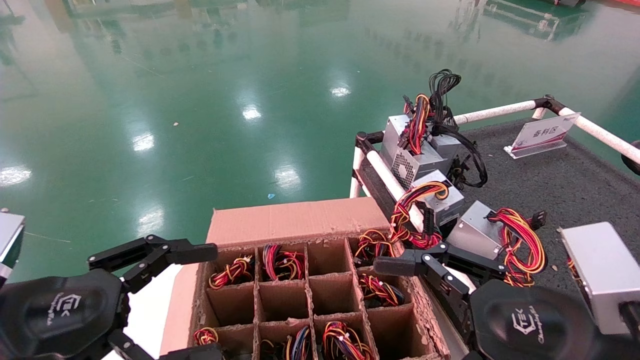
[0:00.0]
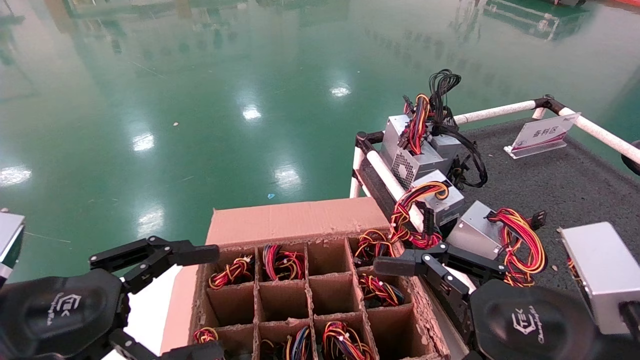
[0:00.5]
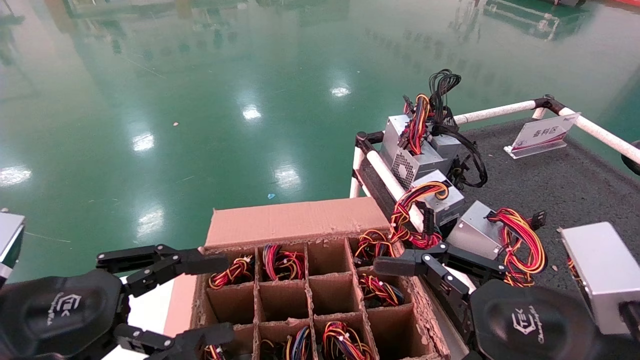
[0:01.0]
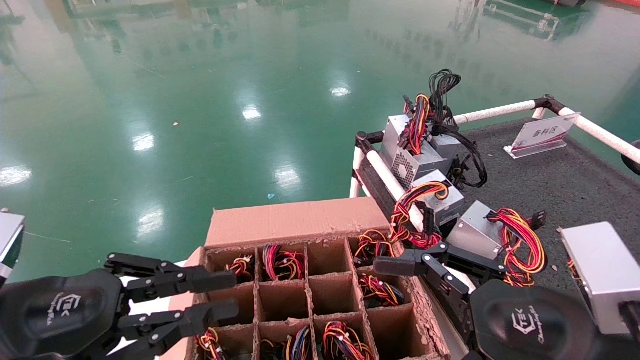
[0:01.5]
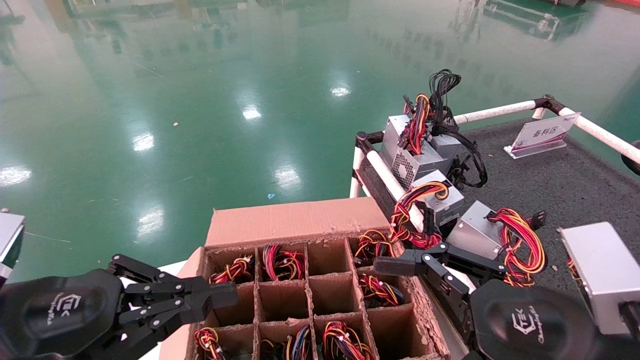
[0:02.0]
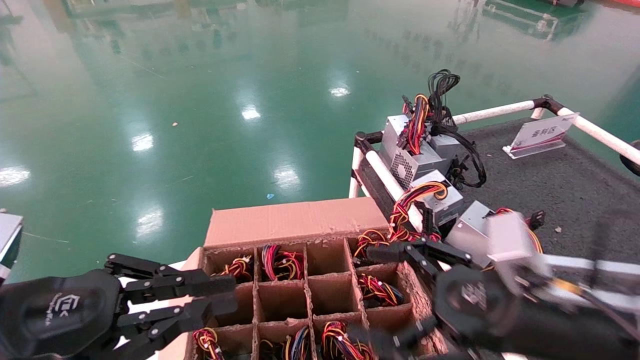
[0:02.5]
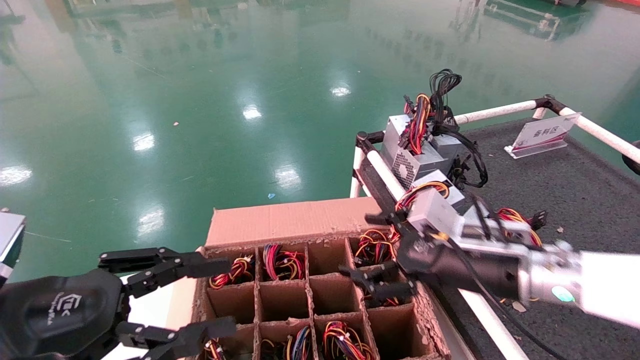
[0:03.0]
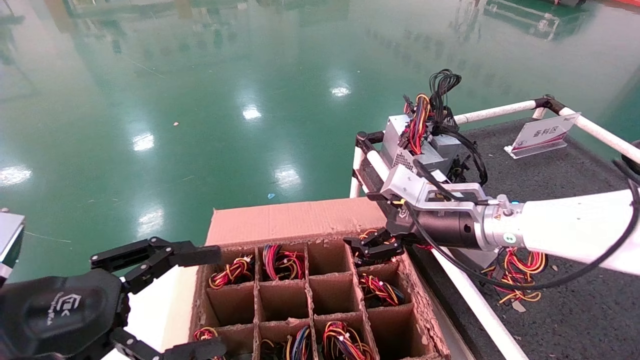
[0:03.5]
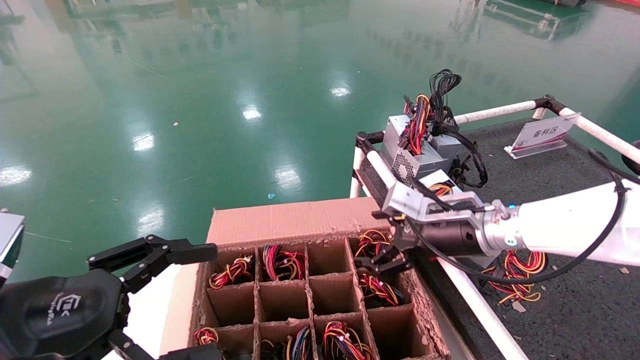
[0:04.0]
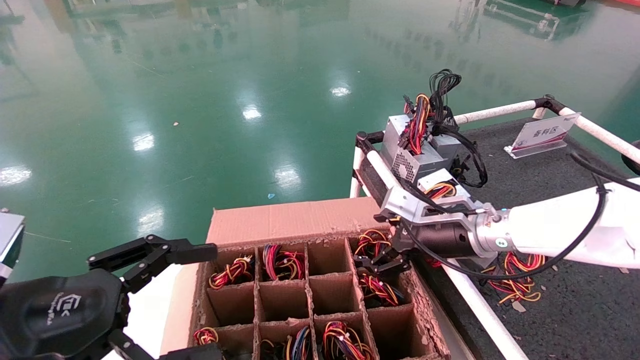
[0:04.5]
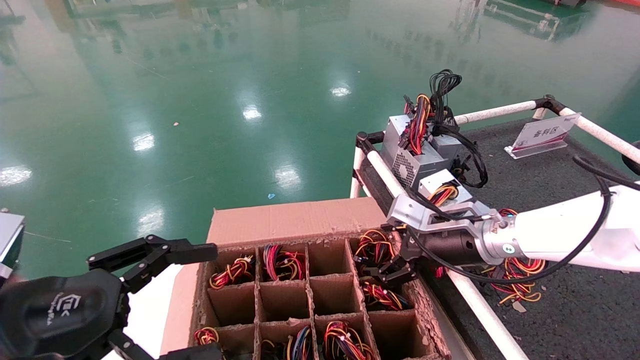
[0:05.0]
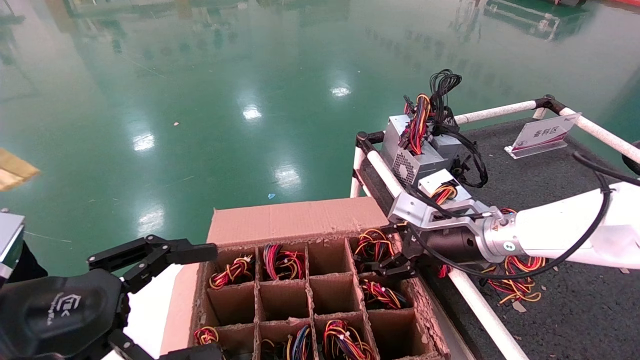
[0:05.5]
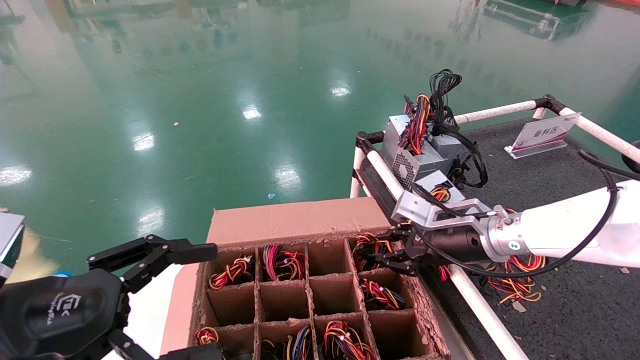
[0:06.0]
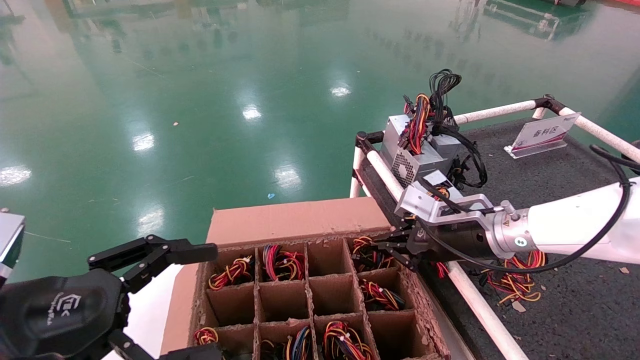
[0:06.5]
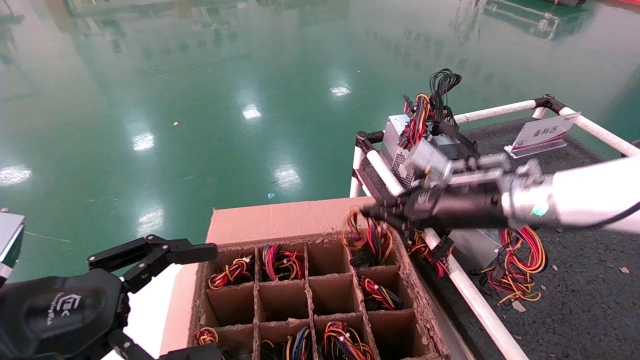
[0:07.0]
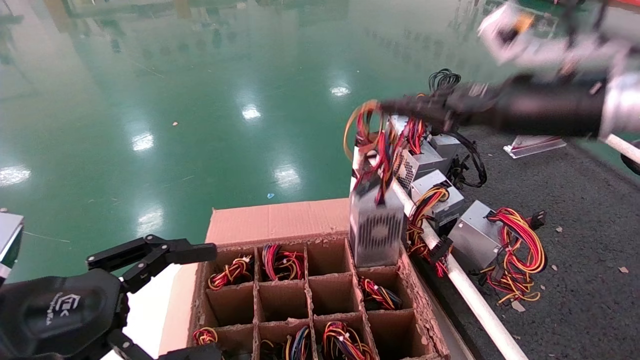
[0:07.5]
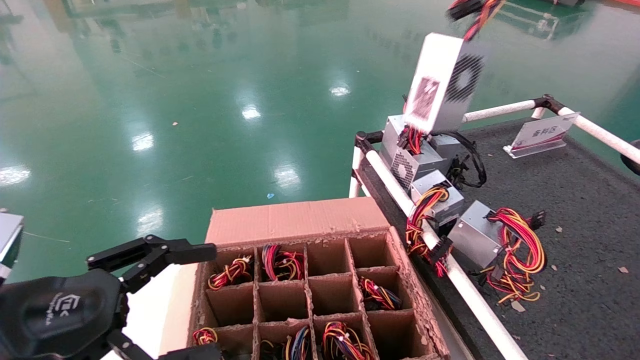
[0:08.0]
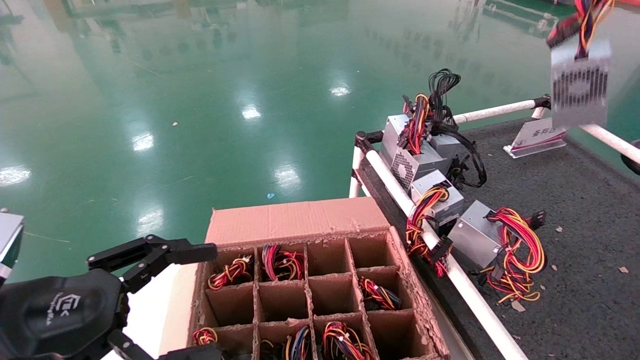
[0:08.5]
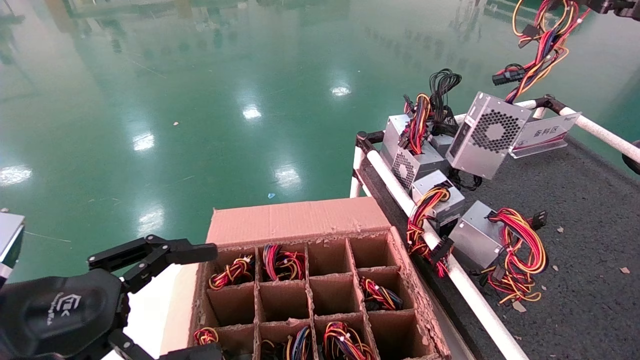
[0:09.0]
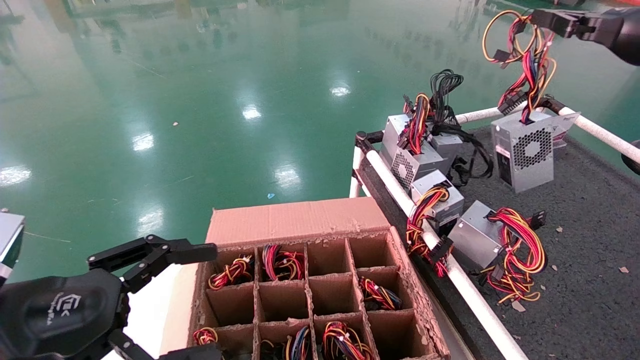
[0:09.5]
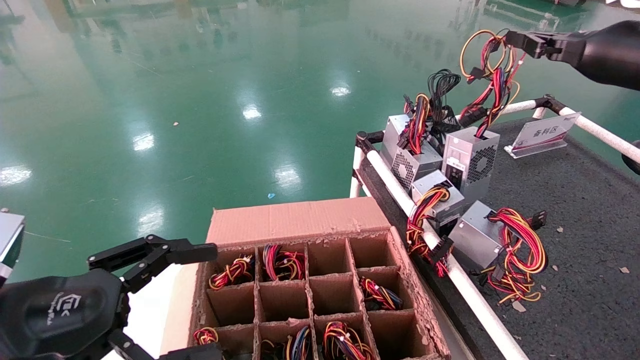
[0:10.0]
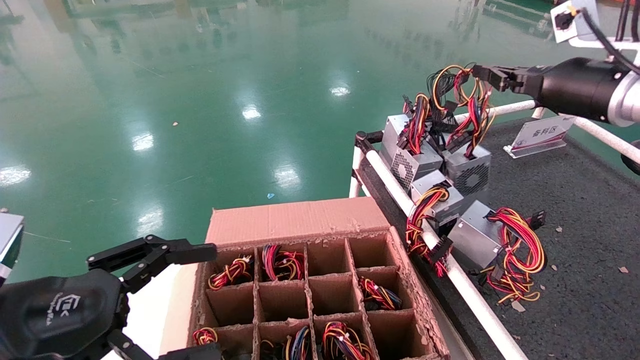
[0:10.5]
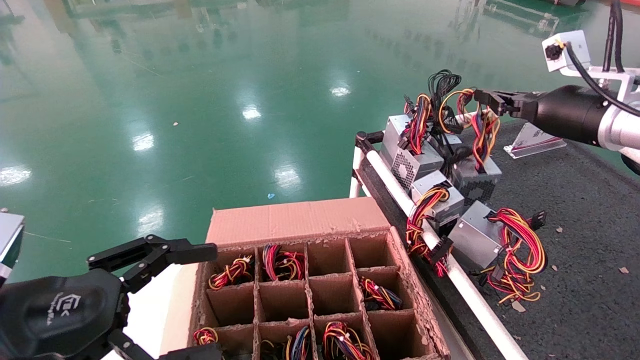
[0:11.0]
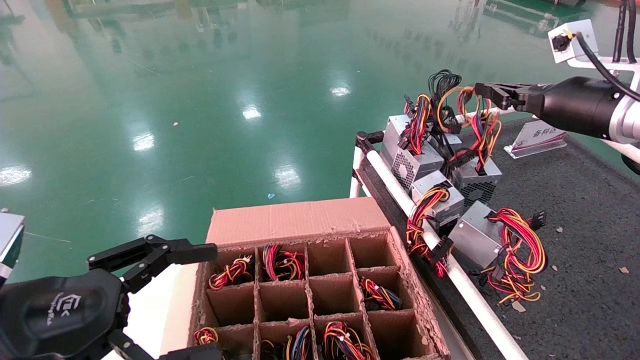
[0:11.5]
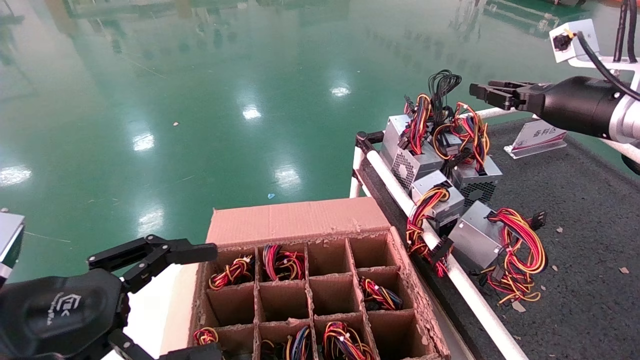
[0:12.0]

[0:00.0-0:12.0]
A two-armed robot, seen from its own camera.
Step, 0:03.0 to 0:06.5: Grab and lift the power supply from the large box.
Step, 0:07.0 to 0:12.0: Place the power supply on the operating table.
0:00.0 to 0:02.0: The left gripper closes up.
0:02.0 to 0:04.0: The right gripper is displaced forward by some 25 cm; the left gripper opens up.
0:04.0 to 0:06.0: The right gripper closes its fingers.
0:06.0 to 0:08.0: The right gripper is displaced upward and backward by about 35 cm, and closes.
0:08.0 to 0:10.0: The right gripper shifts approximately 10 cm downward and forward.
0:10.0 to 0:12.0: The right gripper moves downward, some 5 cm.

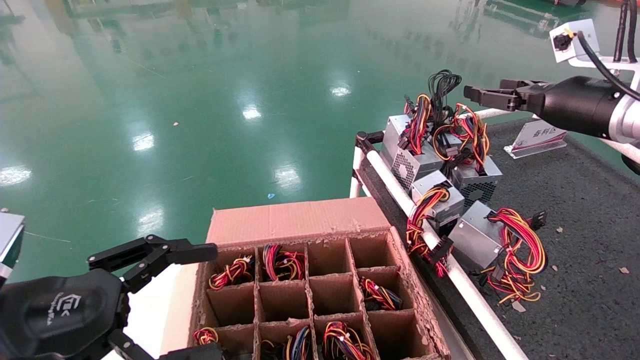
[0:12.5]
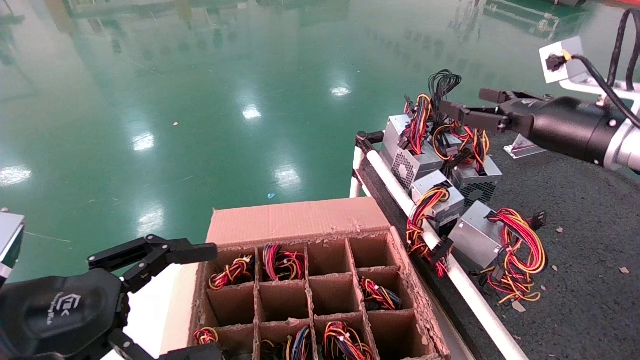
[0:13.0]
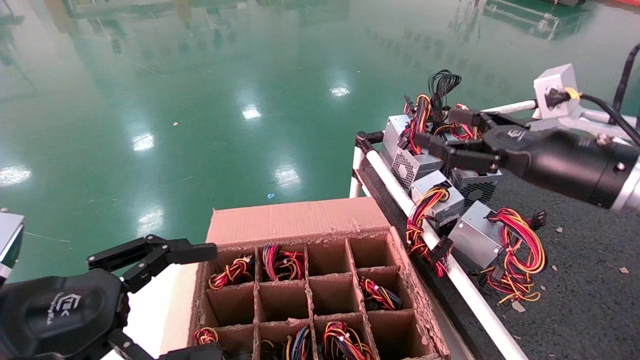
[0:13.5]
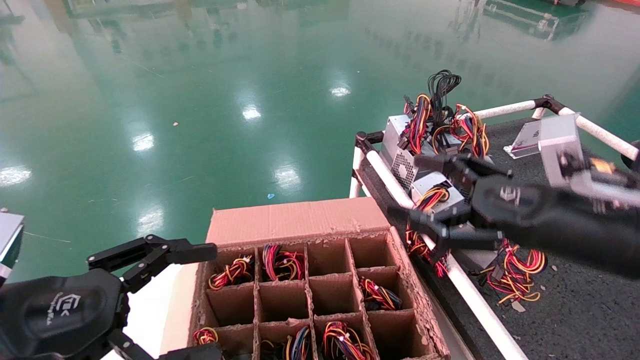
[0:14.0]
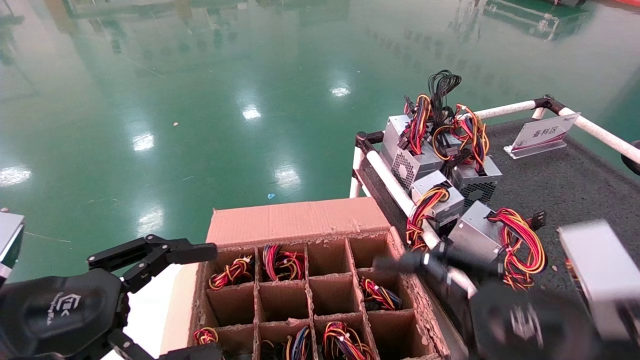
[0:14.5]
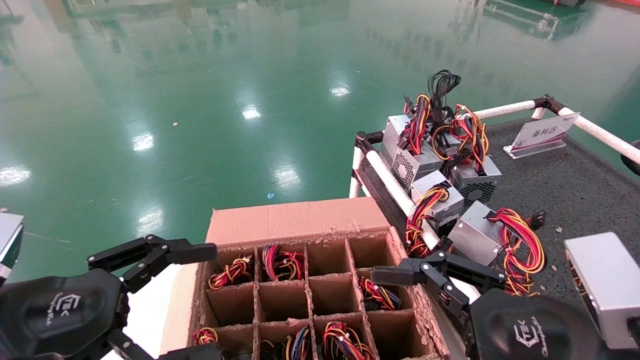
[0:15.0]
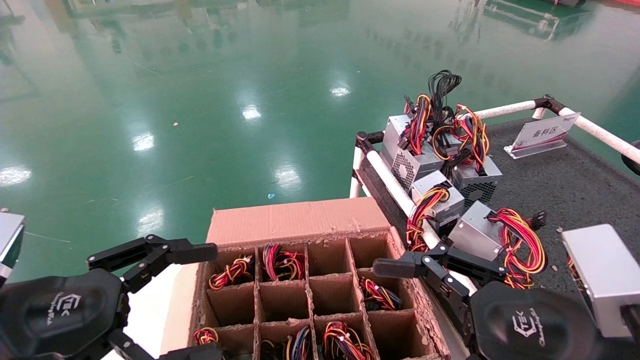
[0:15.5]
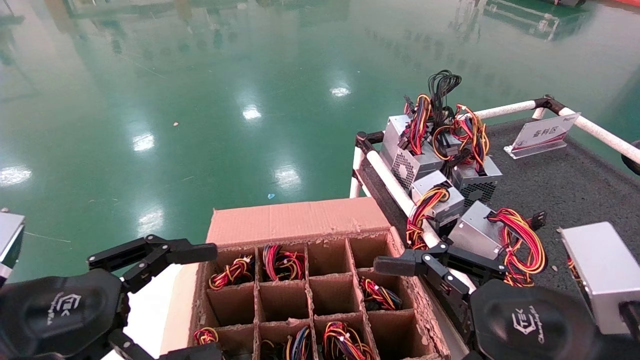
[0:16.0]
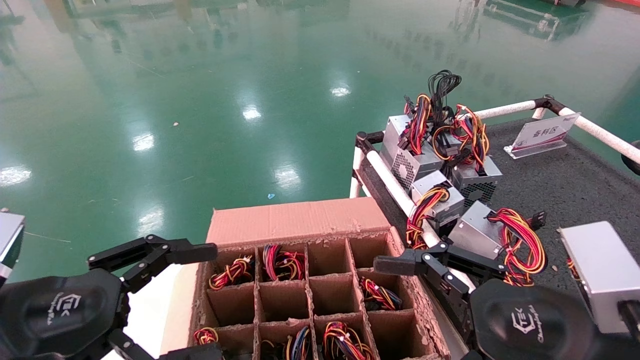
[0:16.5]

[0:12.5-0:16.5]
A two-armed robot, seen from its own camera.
0:12.5 to 0:14.5: The right gripper travels backward, downward and to the left by some 30 cm, and opens up.
0:14.5 to 0:16.5: The grippers stay close to where they were, moving slightly.
